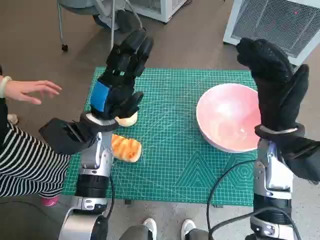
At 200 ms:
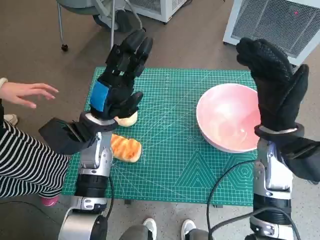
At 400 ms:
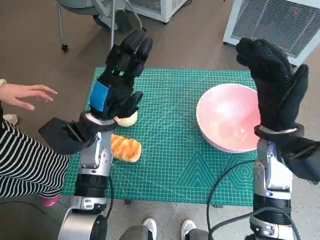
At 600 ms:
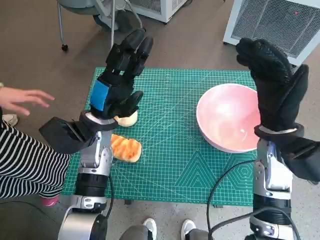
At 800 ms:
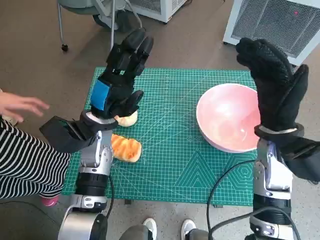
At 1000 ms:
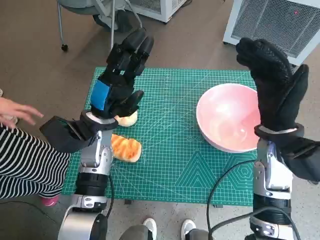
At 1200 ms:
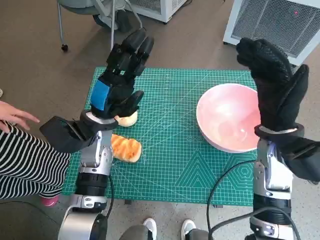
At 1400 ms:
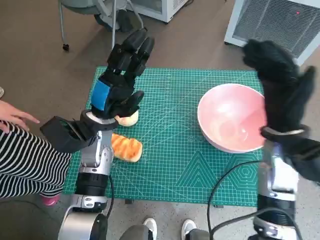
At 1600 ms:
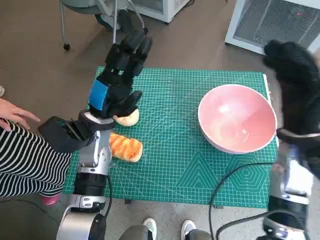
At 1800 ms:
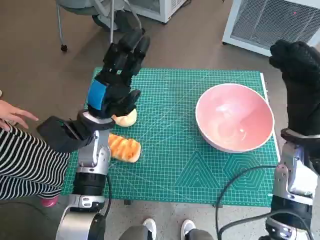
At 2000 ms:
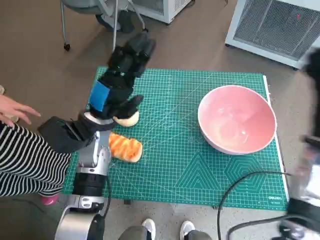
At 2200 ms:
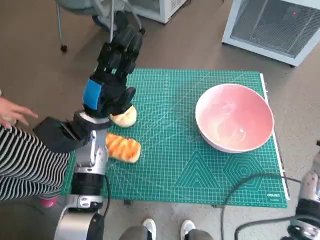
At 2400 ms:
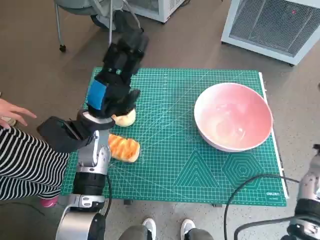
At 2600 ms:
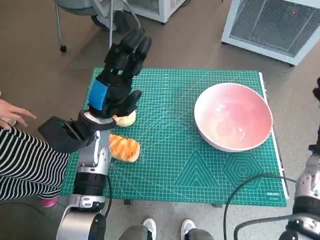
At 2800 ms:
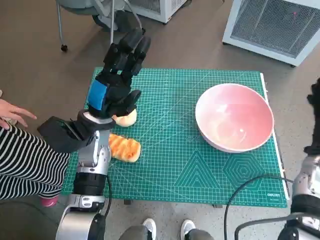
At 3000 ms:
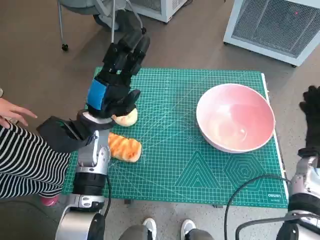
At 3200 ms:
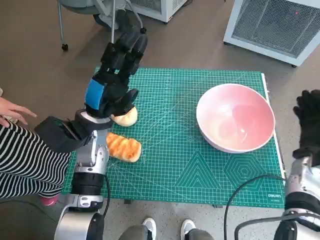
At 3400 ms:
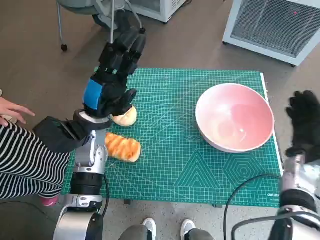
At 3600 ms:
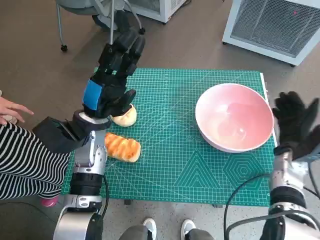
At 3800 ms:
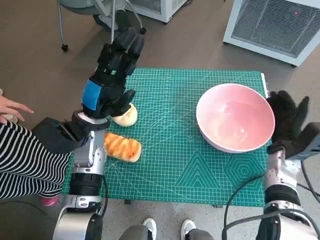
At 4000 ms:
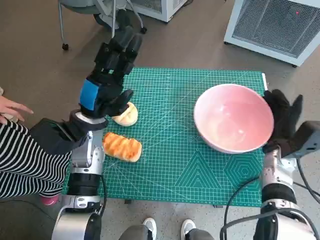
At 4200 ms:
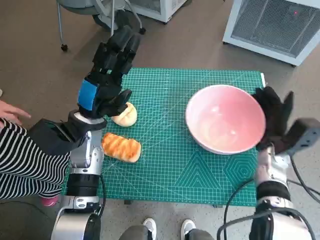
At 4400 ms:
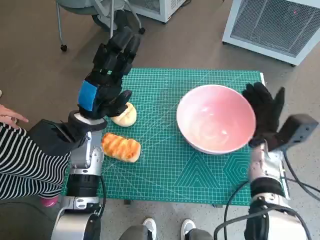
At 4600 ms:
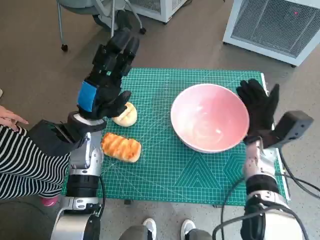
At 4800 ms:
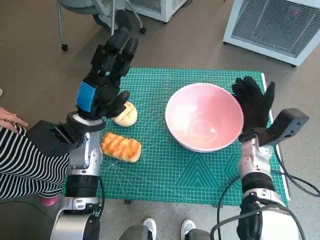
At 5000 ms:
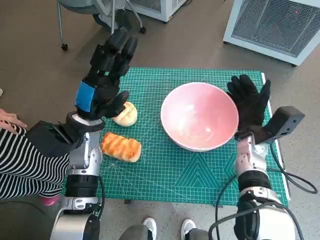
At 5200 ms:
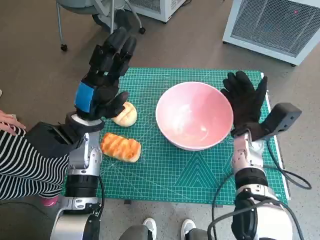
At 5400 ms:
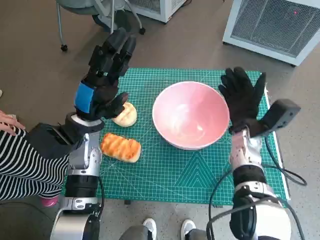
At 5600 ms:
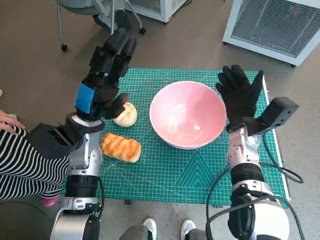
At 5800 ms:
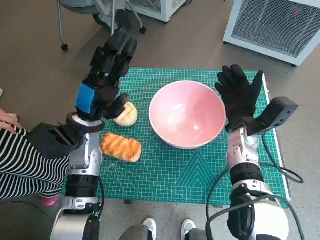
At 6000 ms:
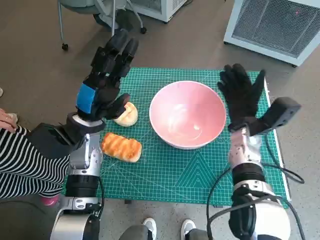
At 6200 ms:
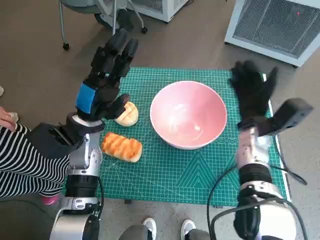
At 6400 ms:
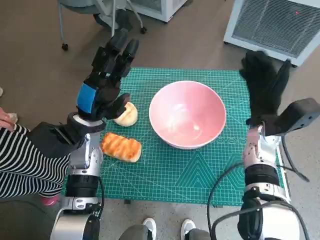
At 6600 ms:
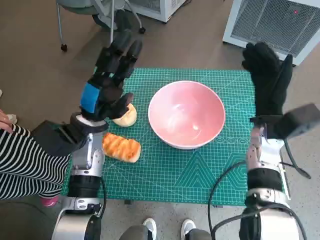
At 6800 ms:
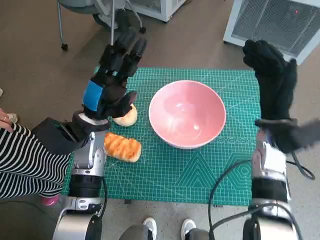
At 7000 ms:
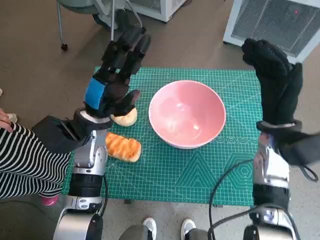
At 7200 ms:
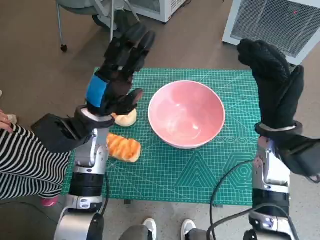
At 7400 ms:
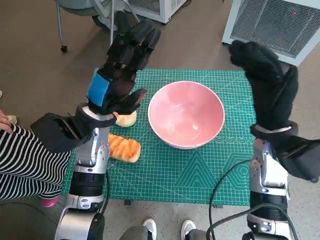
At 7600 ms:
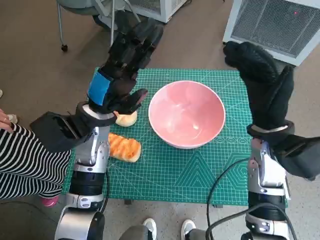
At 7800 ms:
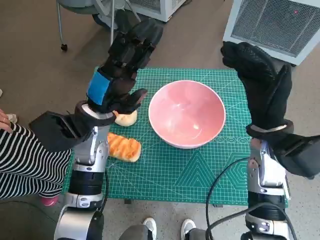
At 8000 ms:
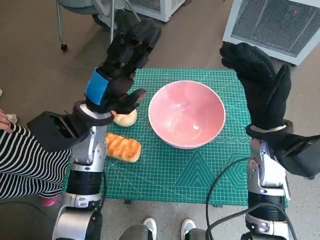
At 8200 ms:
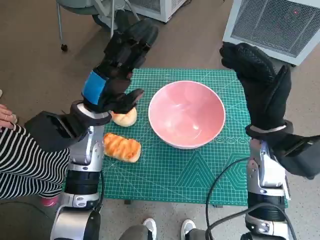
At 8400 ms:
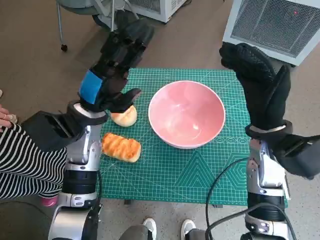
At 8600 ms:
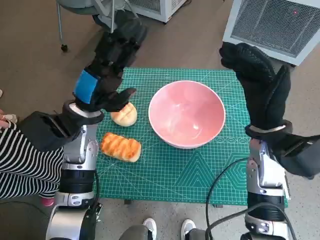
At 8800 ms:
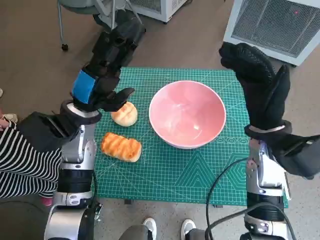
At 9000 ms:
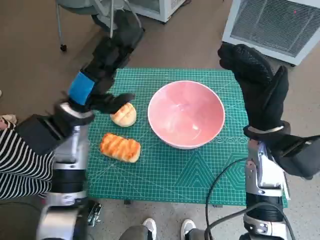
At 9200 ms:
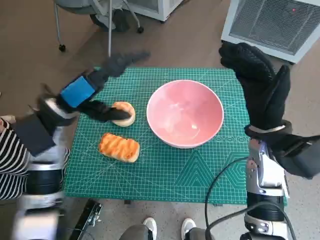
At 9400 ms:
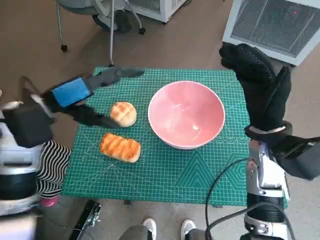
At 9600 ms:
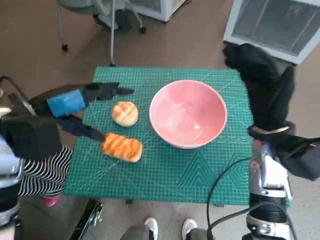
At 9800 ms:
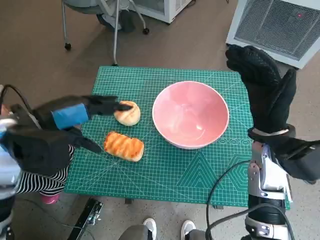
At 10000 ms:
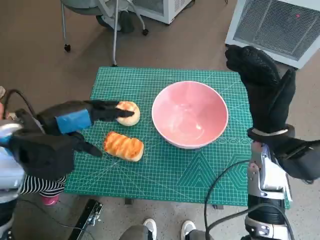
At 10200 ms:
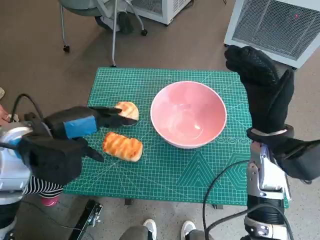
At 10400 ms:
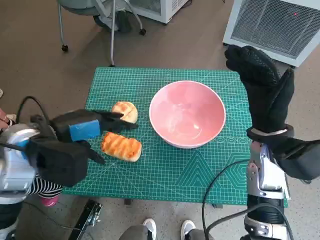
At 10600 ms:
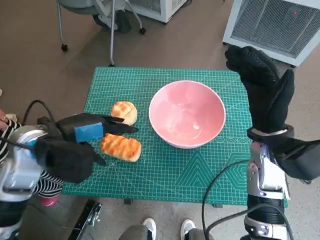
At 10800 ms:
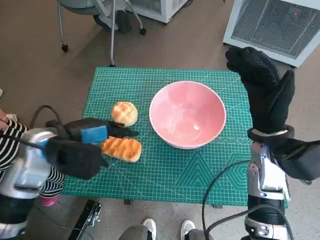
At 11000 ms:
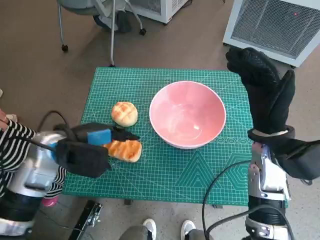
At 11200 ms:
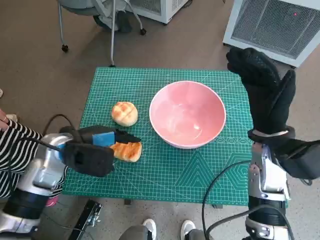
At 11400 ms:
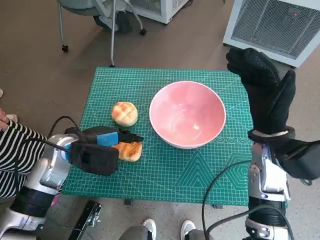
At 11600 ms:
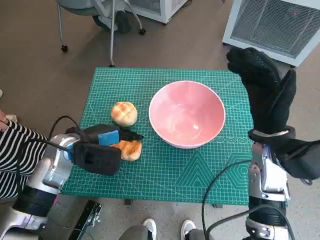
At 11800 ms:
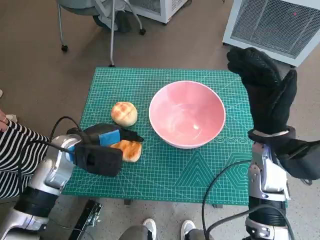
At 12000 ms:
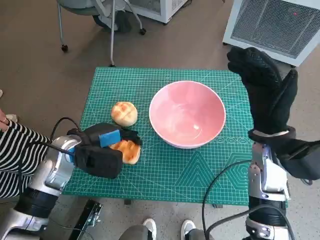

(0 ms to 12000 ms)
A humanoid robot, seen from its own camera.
Task of the whole recording: Push the bowl into the center of the table and put the bread into the bowl.
Step, 0 ms - 6000 ms: Move the pink bowl to the center of table with right hand.
1600 ms - 3000 ms: The right hand moves downward and to the right, about 10 cm.
3000 ms - 4400 ms: The right hand shifts some 10 cm to the left.
4400 ms - 6000 ms: The right hand changes place by about 5 cm.
6000 ms - 7600 ms: The right hand shifts approximately 10 cm upward and backward.
9000 ms - 10400 ms: The left hand travels backward by about 5 cm.
10400 ms - 12000 ms: The left hand is displaced downward by roughly 10 cm.

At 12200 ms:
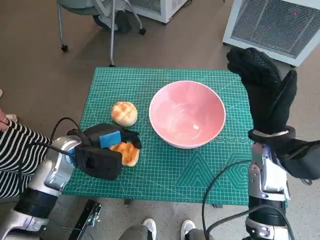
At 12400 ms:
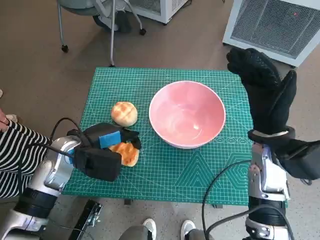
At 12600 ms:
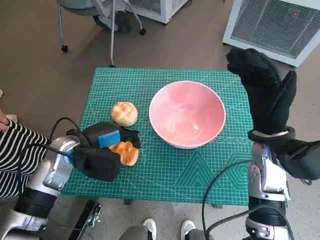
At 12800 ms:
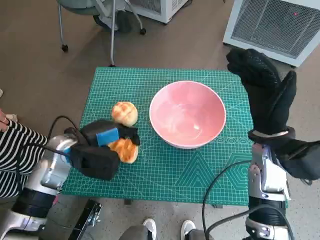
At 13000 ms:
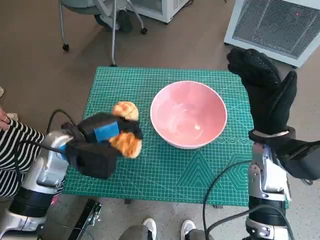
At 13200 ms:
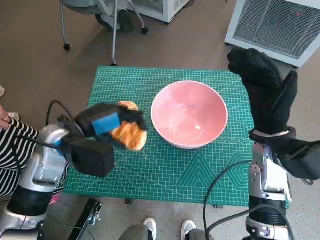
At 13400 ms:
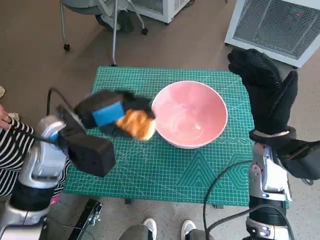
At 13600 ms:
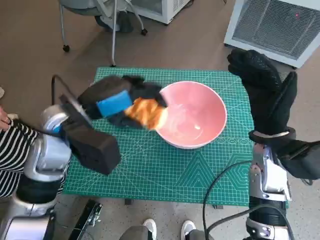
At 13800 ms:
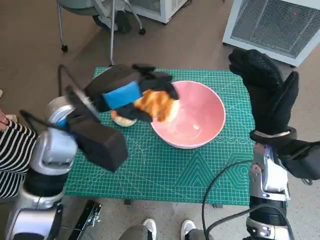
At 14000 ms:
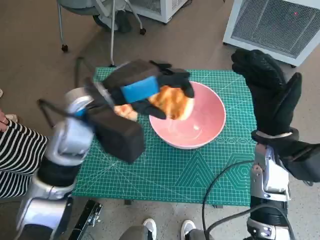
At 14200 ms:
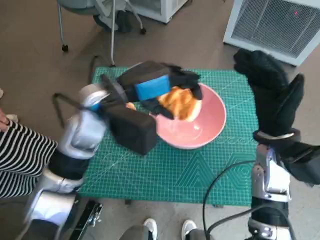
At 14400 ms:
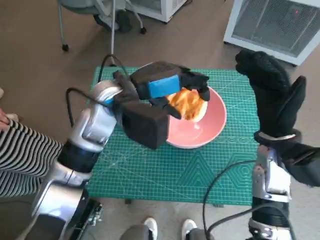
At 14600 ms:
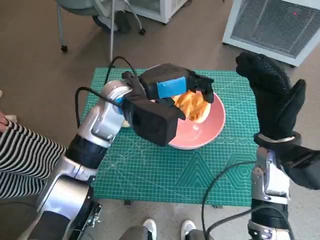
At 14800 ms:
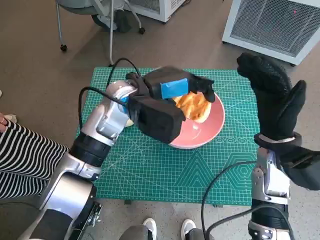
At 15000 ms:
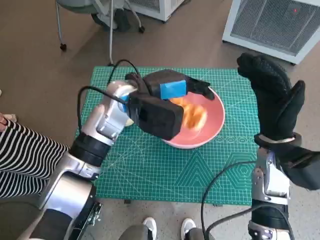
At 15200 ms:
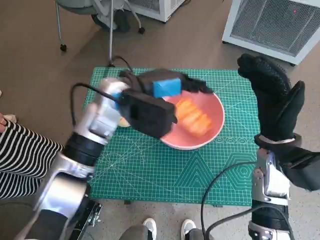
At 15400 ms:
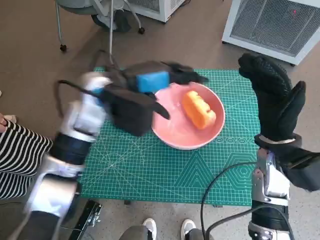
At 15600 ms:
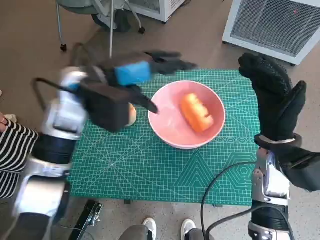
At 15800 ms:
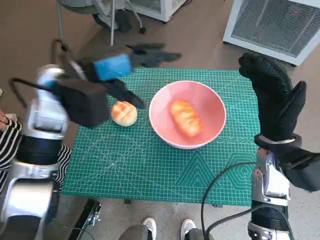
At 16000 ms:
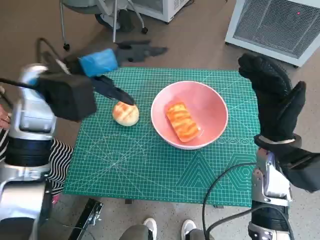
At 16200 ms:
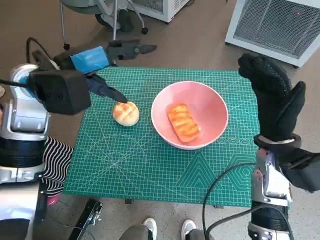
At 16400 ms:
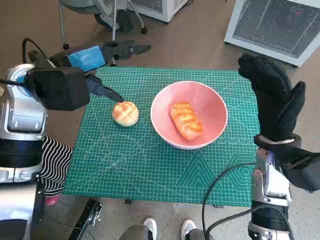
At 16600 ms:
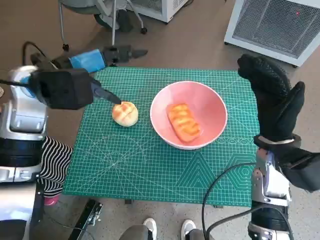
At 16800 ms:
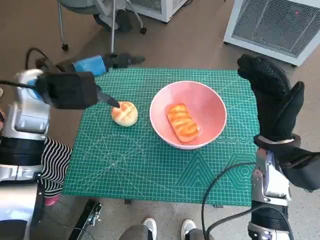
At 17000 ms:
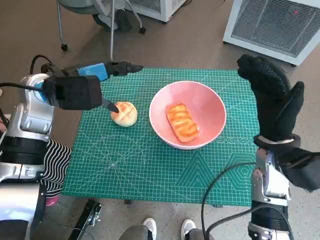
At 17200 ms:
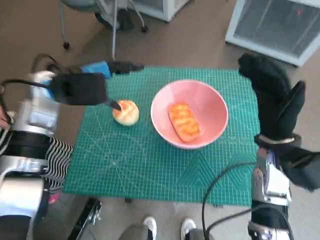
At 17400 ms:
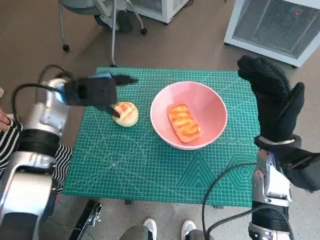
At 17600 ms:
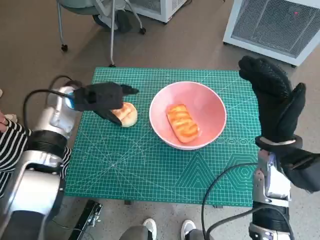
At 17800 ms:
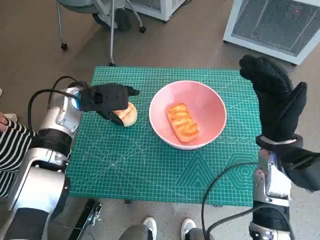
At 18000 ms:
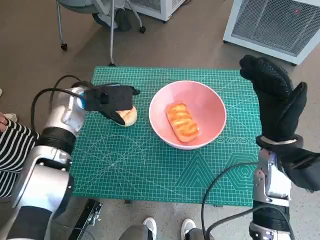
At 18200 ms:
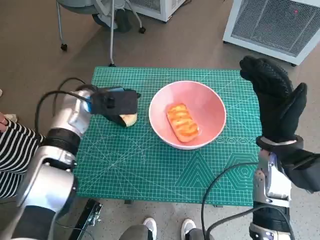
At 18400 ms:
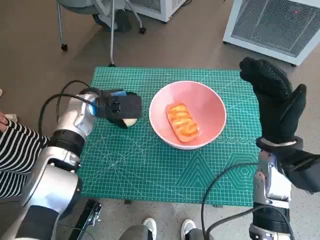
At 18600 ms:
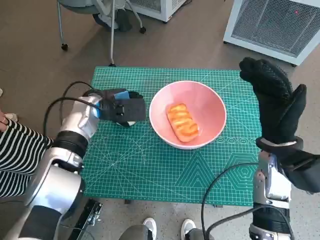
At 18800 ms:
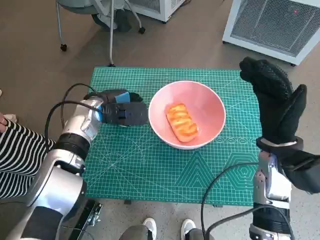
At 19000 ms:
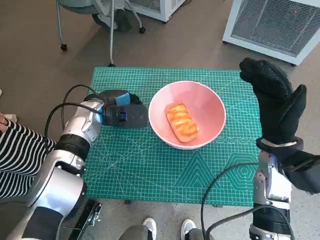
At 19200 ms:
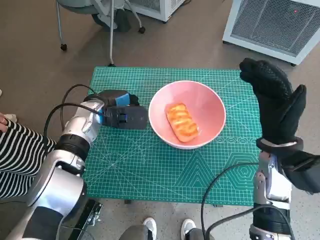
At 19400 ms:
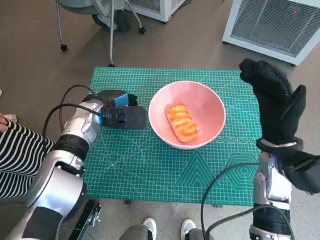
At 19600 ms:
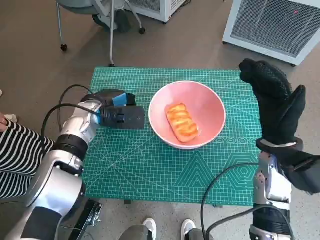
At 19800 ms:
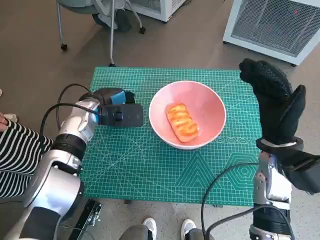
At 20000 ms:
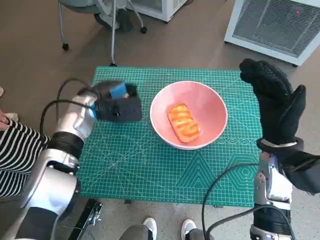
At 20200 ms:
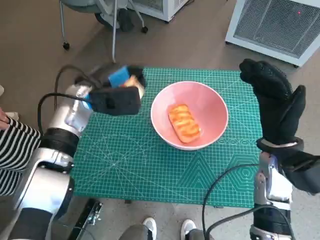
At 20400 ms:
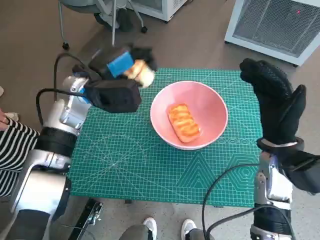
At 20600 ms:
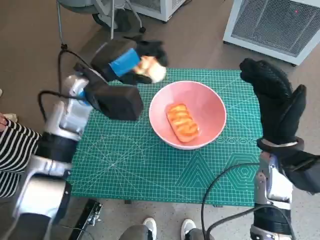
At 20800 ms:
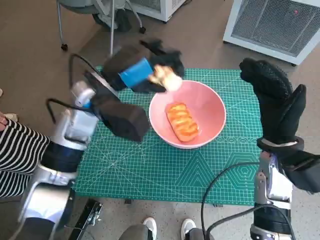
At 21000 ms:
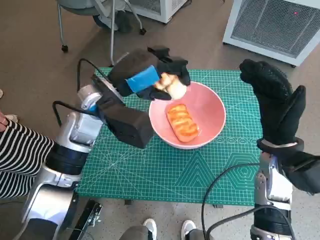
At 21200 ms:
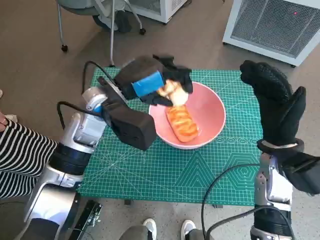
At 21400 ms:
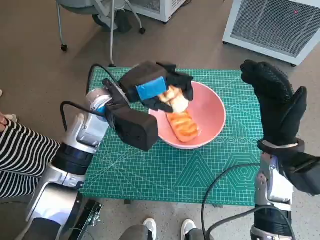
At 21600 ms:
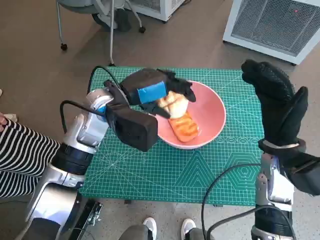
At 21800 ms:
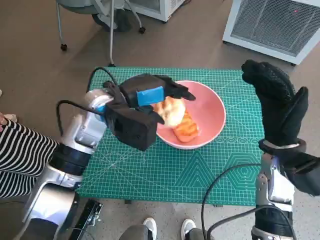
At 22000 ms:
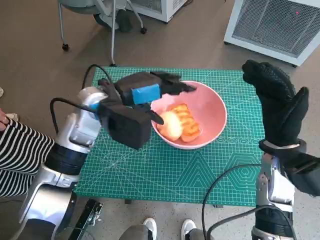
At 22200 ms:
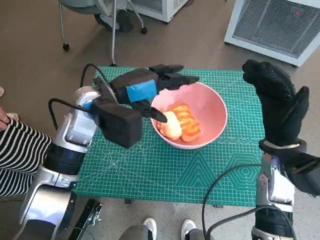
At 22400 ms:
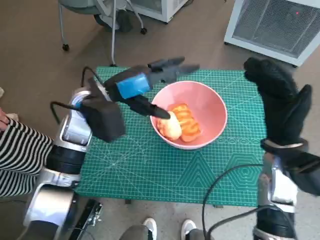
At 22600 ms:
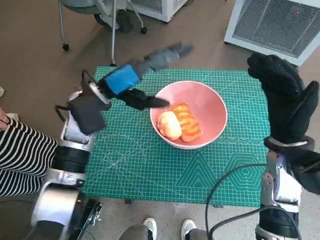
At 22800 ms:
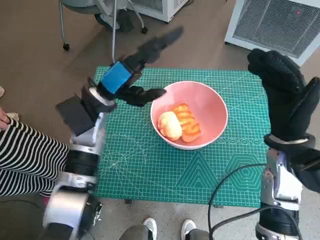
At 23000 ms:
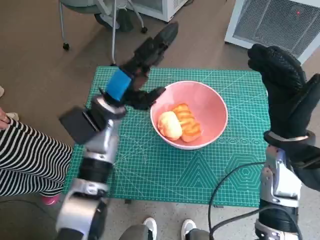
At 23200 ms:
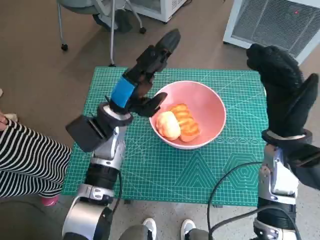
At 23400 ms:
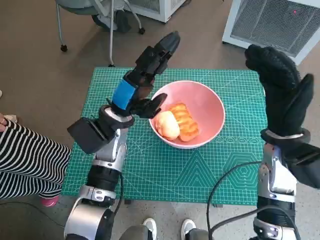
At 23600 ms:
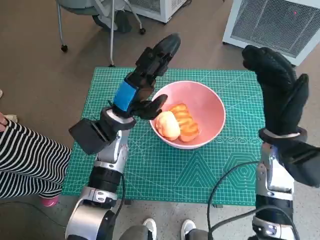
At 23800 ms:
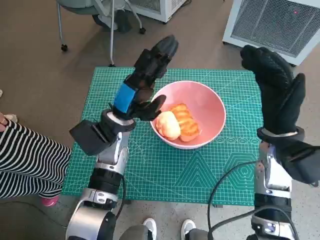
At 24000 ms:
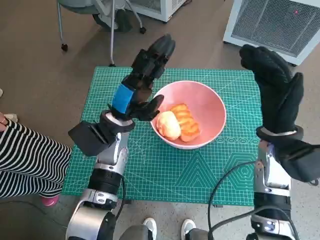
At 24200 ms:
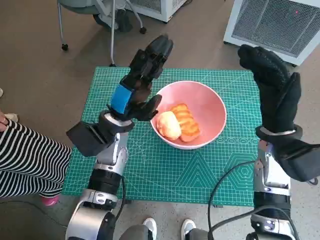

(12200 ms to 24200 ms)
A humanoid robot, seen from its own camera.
Task of the whole recording: Push the bowl into the center of the table and put the bread into the bowl.
Step, 12200 ms - 15400 ms: Place the long bread in pink bowl with left hand.
Step, 15600 ms - 19000 ms: Grasp the round bread with left hand.
Step, 19200 ms - 22400 ms: Place the round bread in pink bowl with left hand.
12200 ms - 13800 ms: The left hand moves upward and to the right, roughly 15 cm.
13800 ms - 15200 ms: The left hand heads forward and to the right, covering roughly 10 cm.
15200 ms - 16600 ms: The left hand shifts roughly 10 cm to the left.
16600 ms - 18200 ms: The left hand is displaced downward by some 10 cm.
18200 ms - 19800 ms: The hands stay close to where they were, moving slightly.
19800 ms - 21200 ms: The left hand moves upward and to the right, approximately 10 cm.
22600 ms - 24200 ms: The left hand heads downward, covering about 5 cm.
